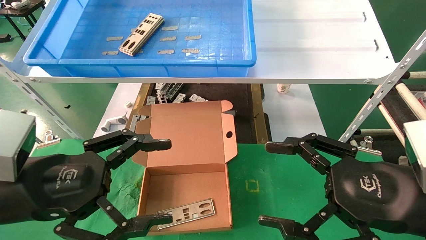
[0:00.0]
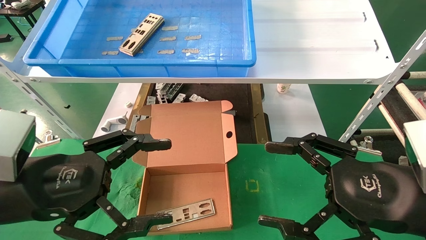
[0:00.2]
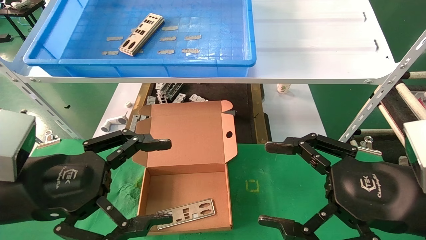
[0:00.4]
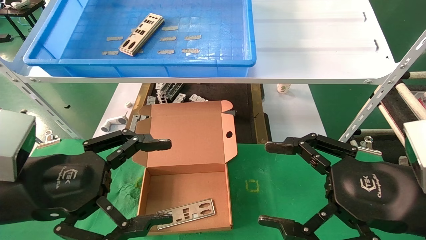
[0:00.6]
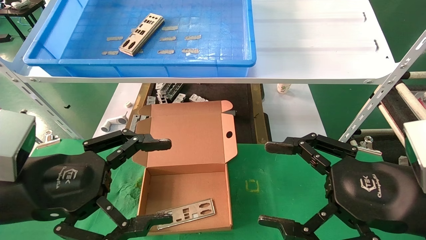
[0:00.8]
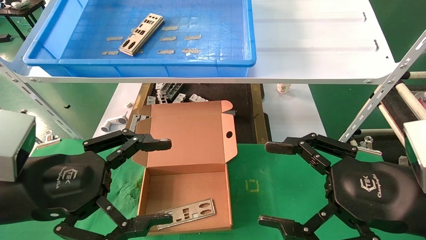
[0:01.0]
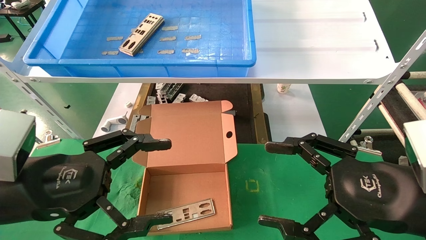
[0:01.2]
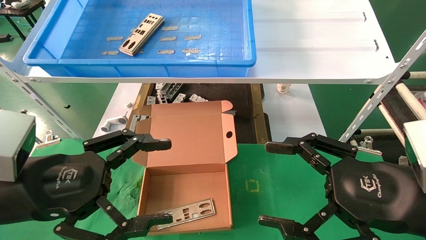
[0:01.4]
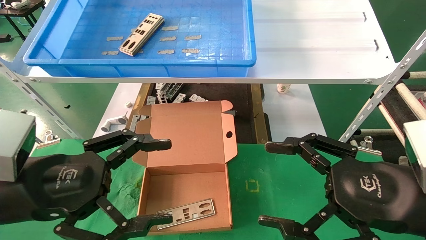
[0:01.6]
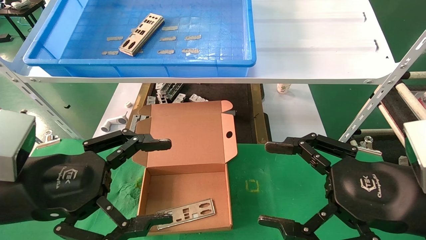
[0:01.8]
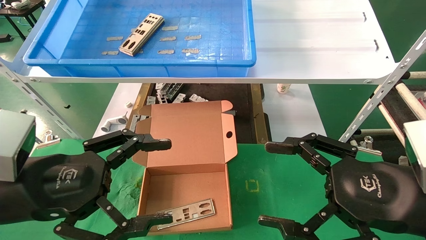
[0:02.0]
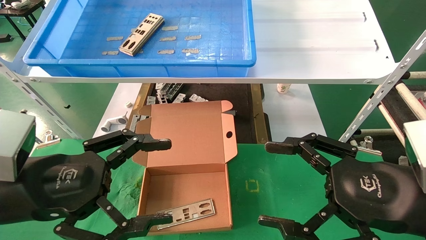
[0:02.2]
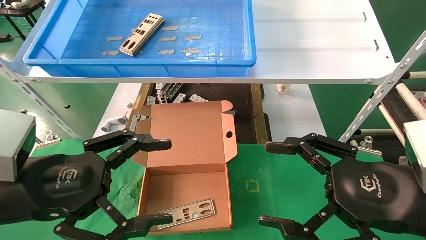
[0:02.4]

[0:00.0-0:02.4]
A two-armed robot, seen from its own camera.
Task of the whole recording: pick up the parts on the tray and put them in the cardboard box.
0:00.0 to 0:02.4: The two grippers keep their place.
